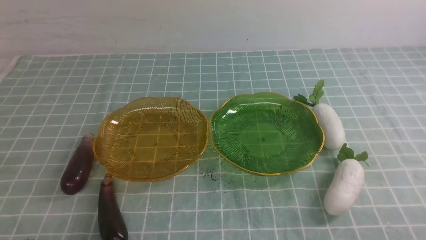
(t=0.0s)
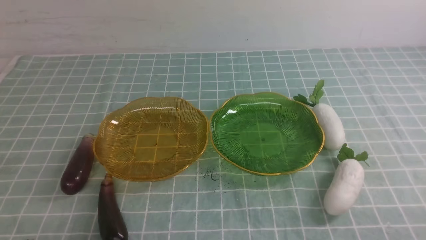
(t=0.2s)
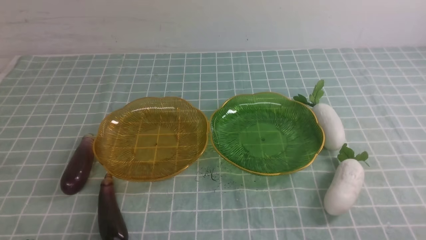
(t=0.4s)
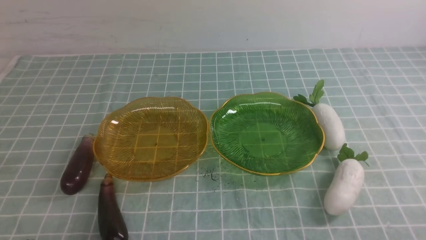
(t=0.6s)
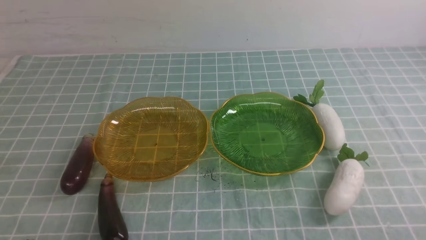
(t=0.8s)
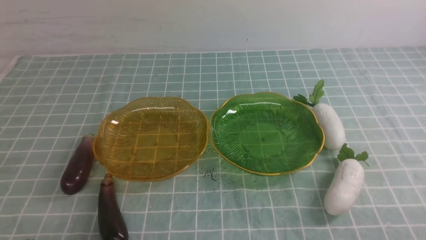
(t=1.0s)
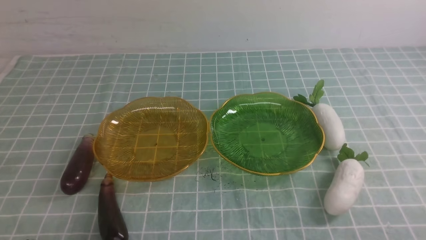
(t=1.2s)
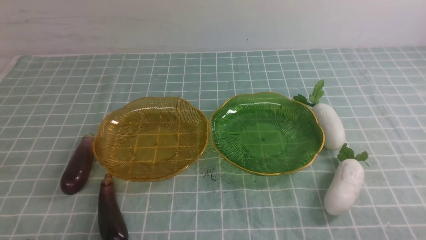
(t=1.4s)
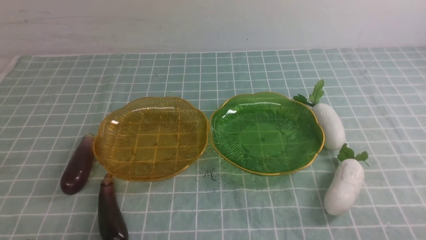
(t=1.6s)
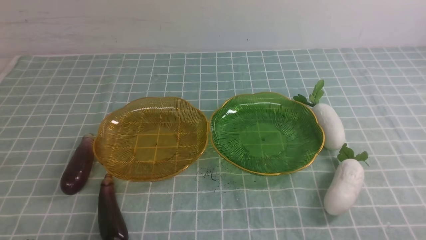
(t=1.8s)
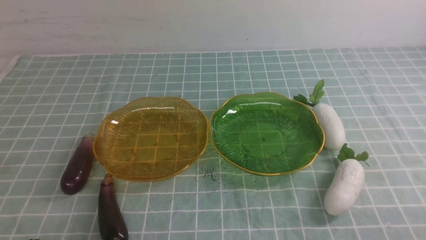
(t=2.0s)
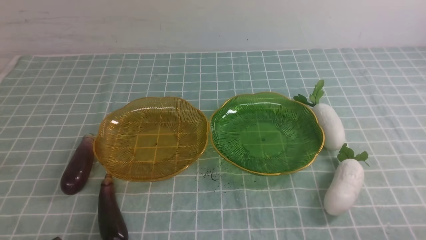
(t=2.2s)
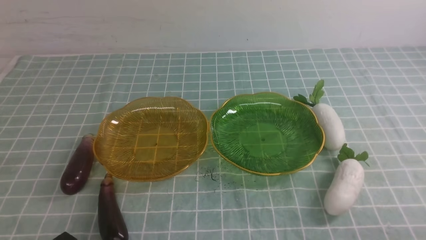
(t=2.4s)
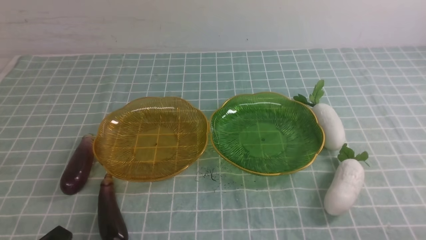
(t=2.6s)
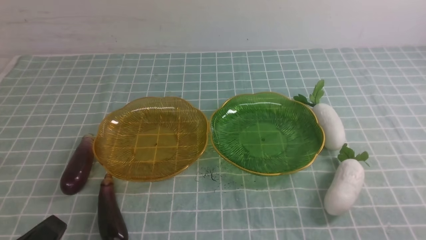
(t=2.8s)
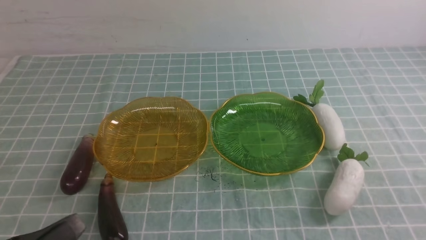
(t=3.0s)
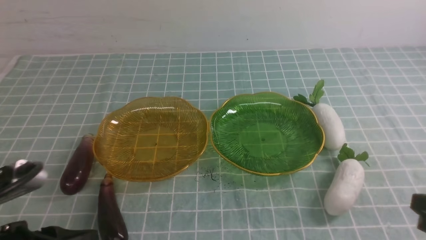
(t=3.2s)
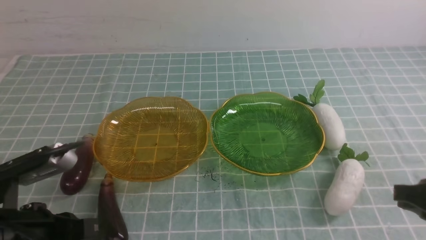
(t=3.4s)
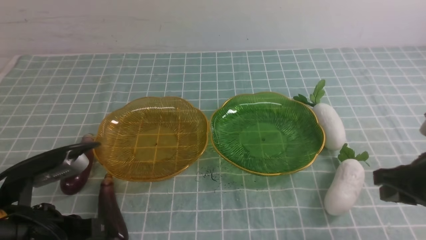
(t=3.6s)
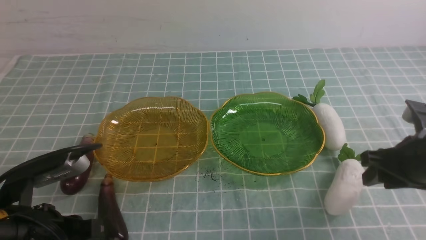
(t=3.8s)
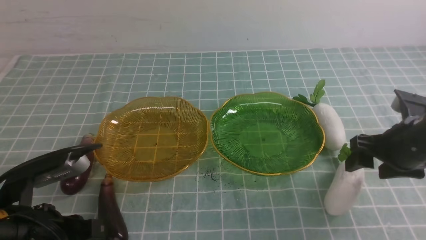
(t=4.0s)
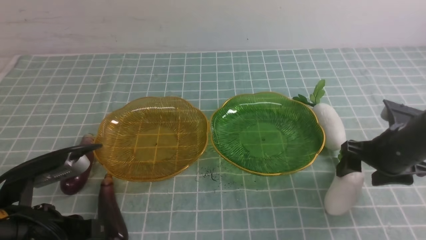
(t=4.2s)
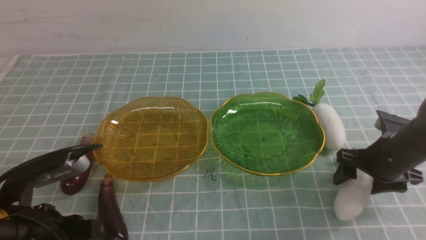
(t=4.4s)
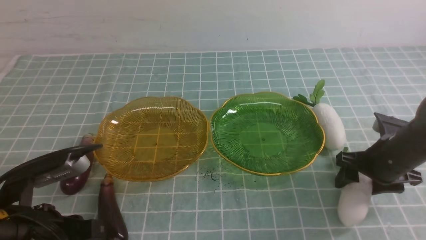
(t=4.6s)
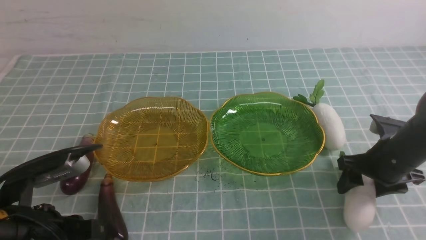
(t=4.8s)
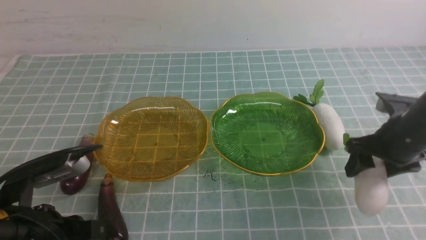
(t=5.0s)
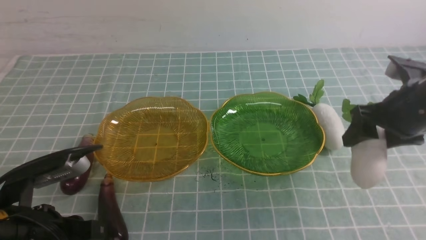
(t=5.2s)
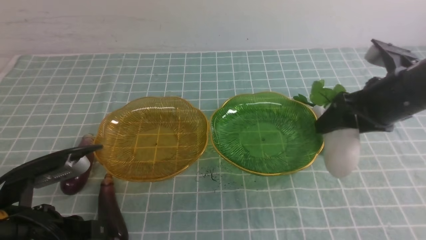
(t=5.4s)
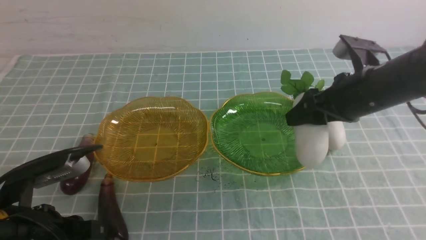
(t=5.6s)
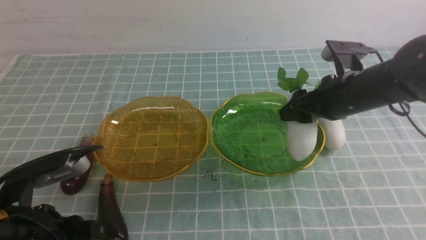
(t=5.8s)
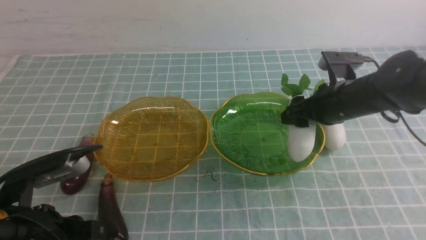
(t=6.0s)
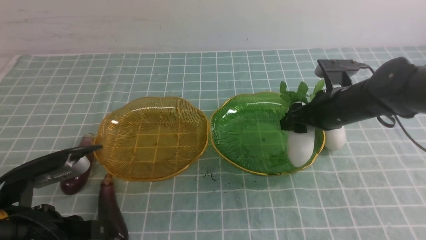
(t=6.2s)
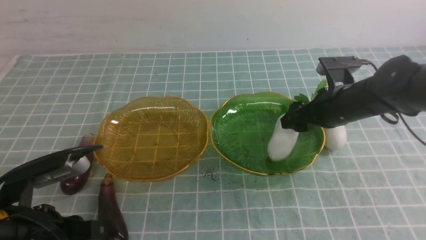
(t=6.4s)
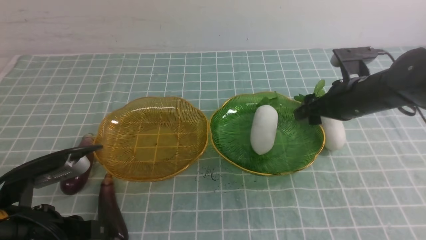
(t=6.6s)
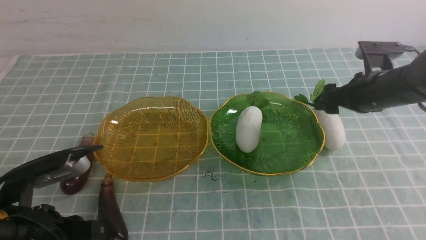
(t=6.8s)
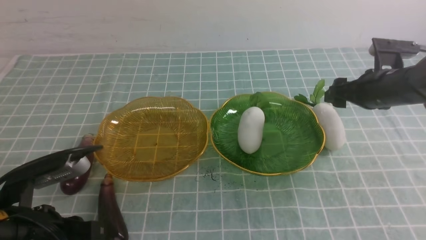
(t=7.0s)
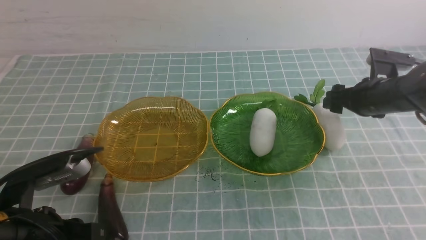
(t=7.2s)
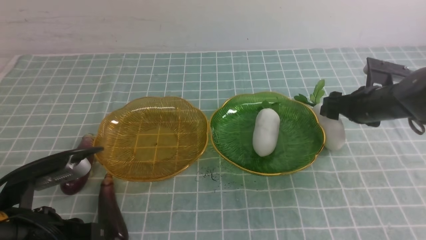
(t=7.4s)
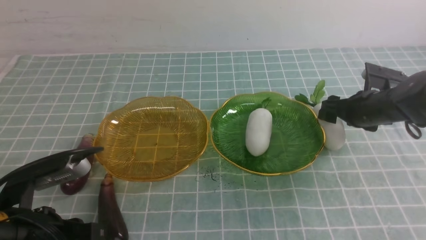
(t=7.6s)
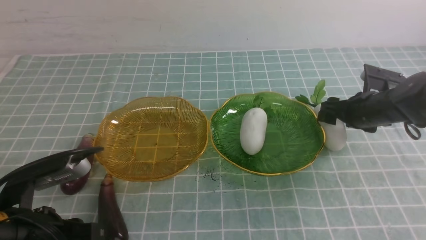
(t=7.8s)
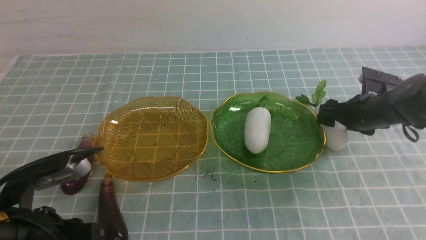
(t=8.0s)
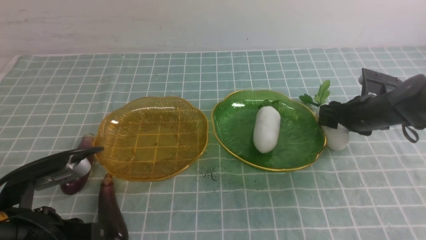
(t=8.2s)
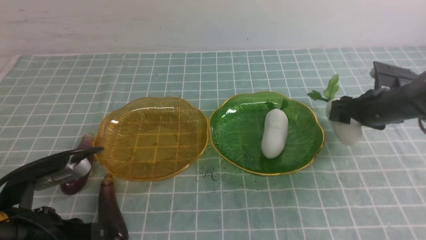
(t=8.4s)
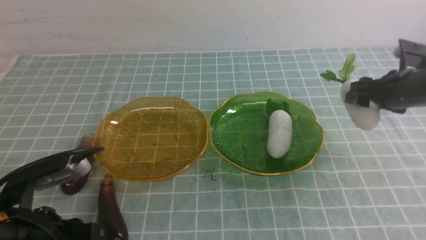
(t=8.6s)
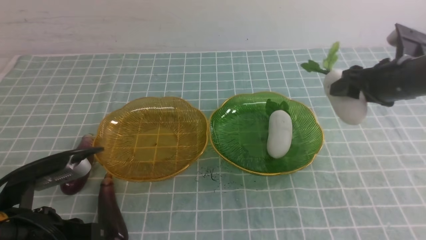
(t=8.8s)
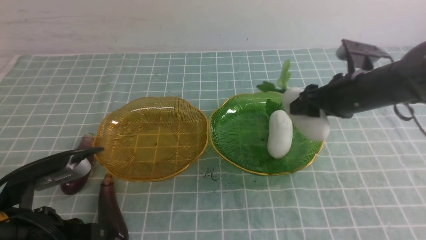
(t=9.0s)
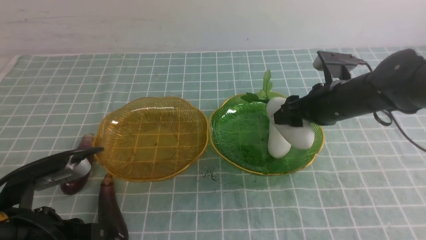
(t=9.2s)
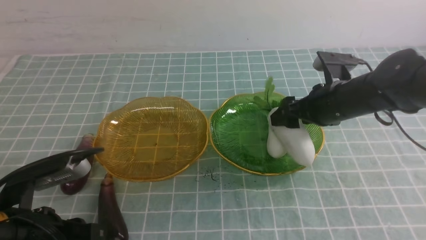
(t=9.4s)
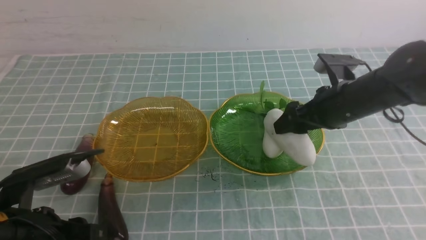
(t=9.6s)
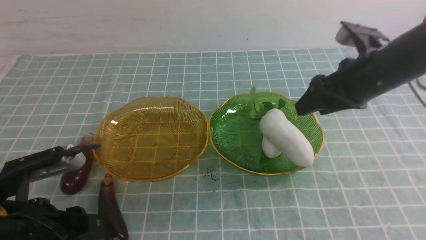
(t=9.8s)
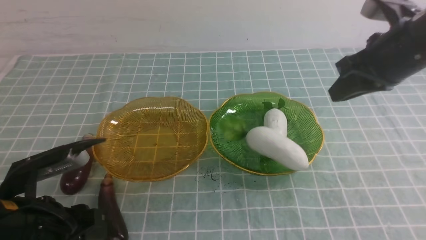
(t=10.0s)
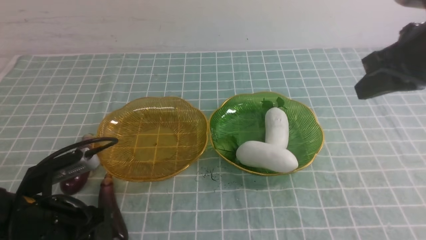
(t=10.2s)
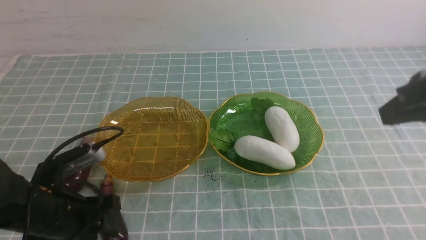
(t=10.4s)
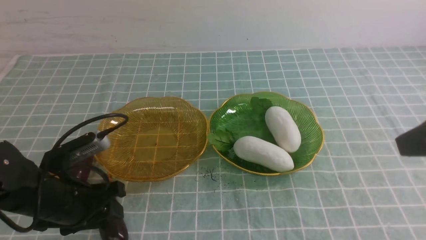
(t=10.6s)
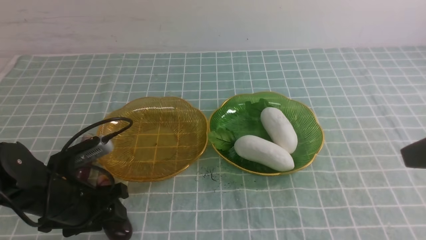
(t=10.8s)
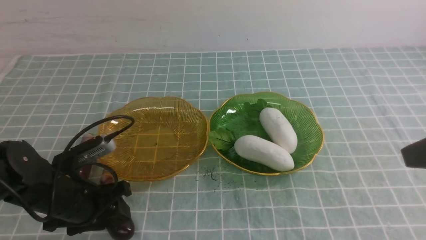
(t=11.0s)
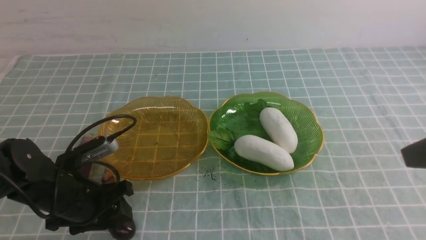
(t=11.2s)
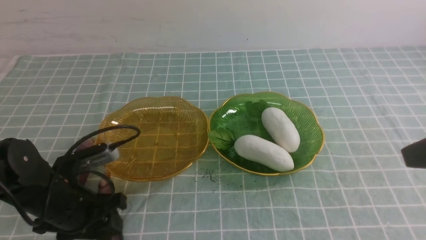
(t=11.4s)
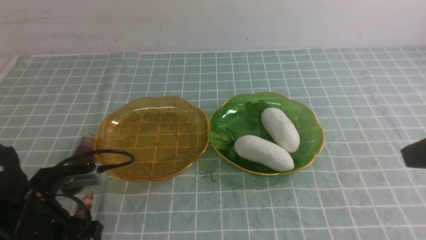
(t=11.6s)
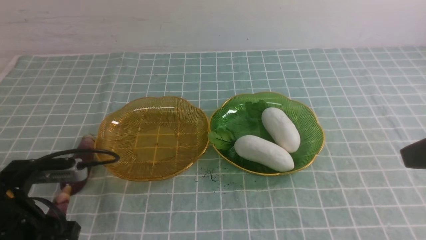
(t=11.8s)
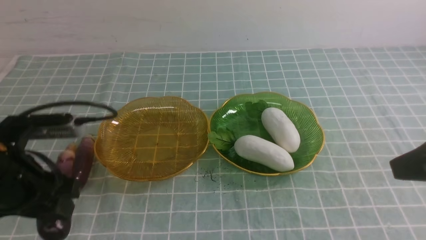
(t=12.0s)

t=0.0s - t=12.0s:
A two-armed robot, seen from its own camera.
Step, t=0.0s - t=6.4s: use the right arm to grab a radish and put it into the right plate.
Step, t=6.6s - t=9.6s: use the right arm to grab a radish and put it into the right plate.
t=0.0s - t=1.6s: Both grippers stay about where they are.
t=1.6s - t=3.0s: The left gripper goes roughly 10 cm upward.
t=3.0s - t=4.4s: The left gripper heads forward, covering some 10 cm, while the right gripper shifts roughly 25 cm forward, and opens its fingers.
t=4.4s - t=6.0s: The right gripper goes roughly 10 cm to the left, forward and upward.
t=6.0s - t=7.6s: The right gripper moves to the right and downward, about 10 cm.
t=7.6s - t=9.0s: The right gripper goes about 10 cm upward and to the left.
t=9.0s - t=10.4s: The left gripper heads forward, covering roughly 5 cm, and opens its fingers; the right gripper travels backward and upward by about 20 cm, and closes.
t=10.4s - t=12.0s: The right gripper moves backward, approximately 5 cm. Meanwhile the left gripper travels upward by about 10 cm.

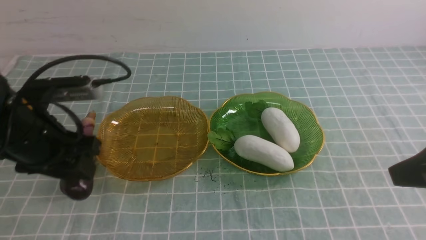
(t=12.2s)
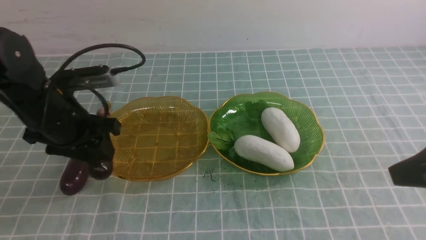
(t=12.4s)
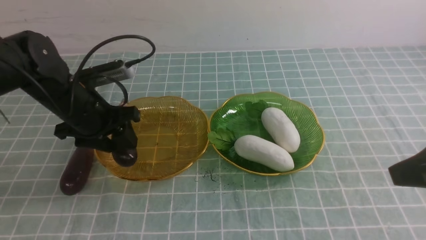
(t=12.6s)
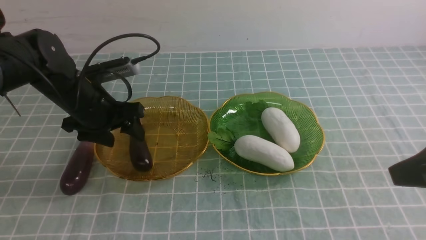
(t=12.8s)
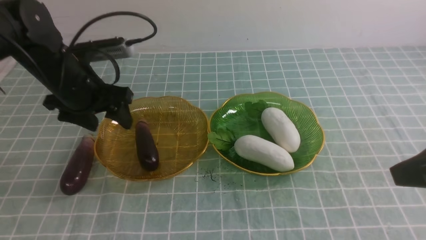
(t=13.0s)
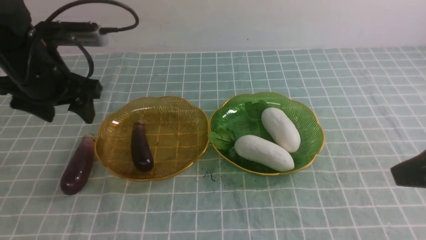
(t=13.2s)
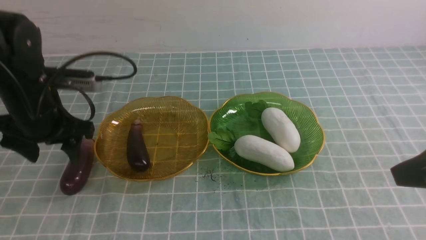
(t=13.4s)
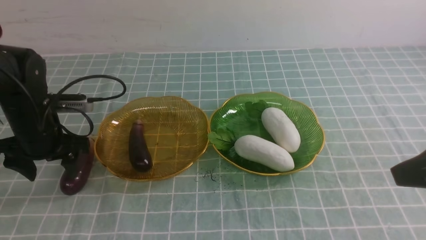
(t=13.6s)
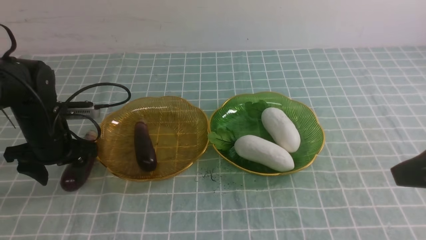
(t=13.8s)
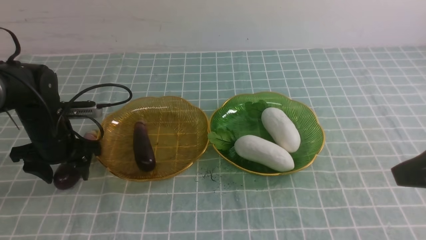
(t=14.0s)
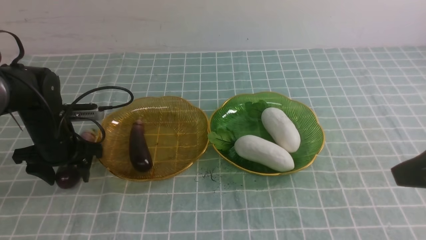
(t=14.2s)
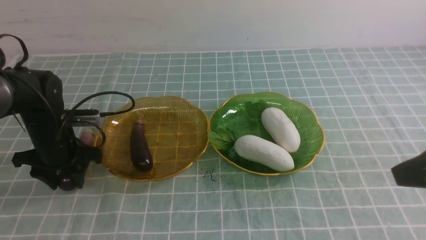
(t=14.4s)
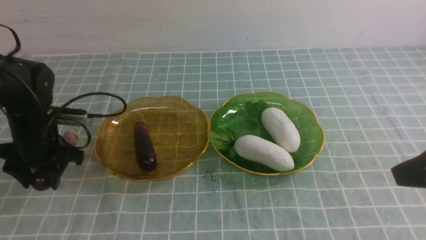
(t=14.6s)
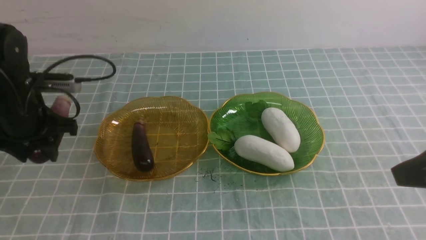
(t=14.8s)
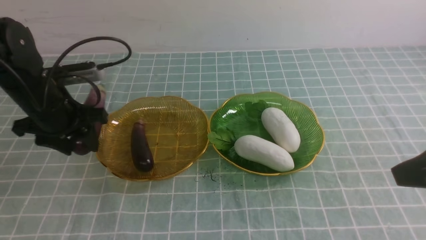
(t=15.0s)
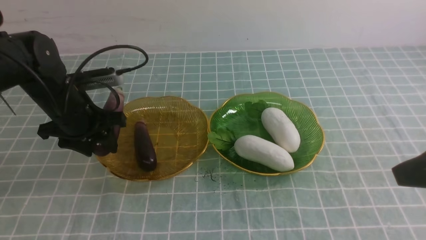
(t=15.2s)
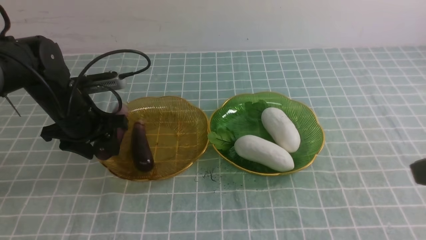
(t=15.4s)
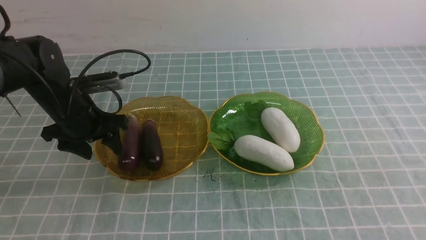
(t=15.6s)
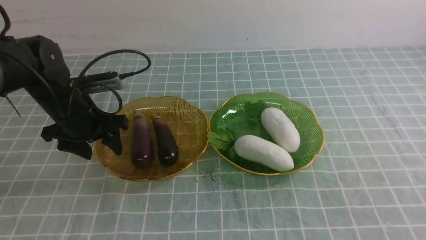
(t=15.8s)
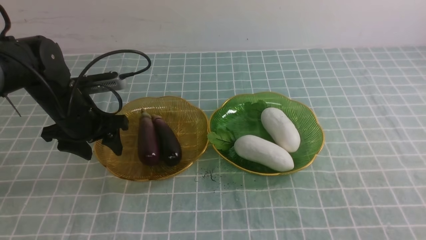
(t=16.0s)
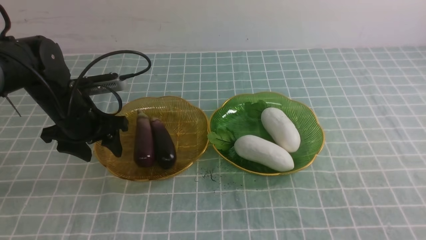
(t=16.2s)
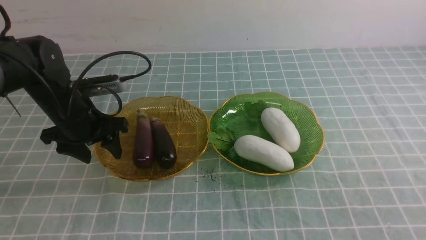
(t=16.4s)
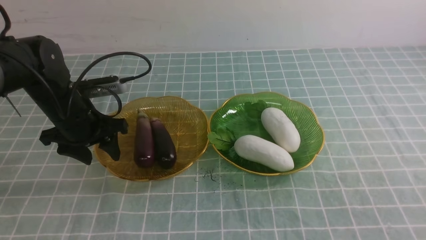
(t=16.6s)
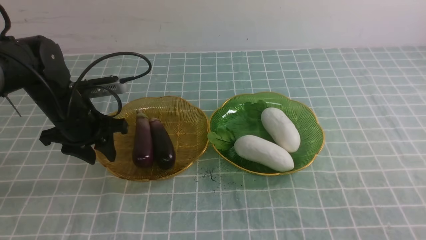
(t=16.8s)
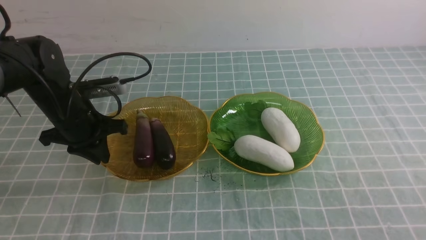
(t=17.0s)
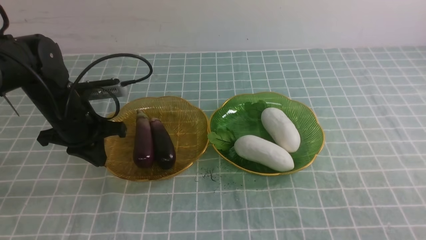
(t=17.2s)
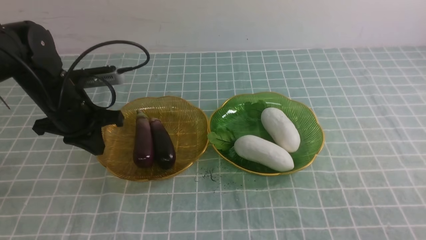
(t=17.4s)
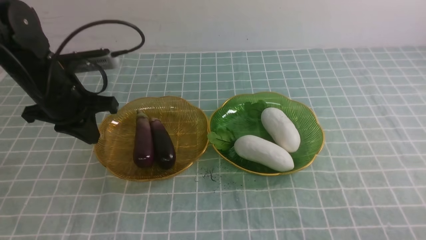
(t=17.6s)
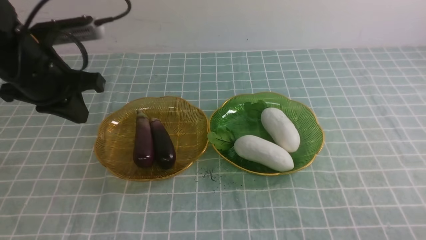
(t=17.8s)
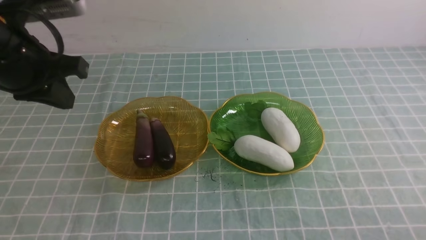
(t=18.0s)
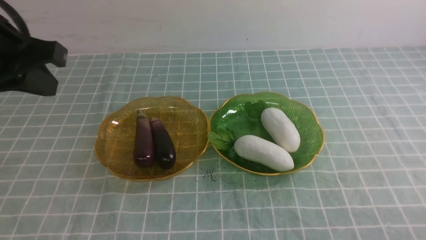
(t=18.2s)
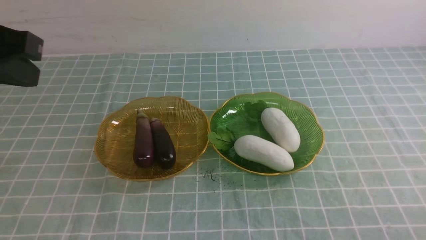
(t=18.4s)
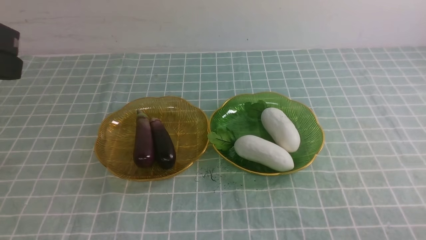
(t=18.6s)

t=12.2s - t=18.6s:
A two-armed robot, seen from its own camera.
Step, t=12.2s - t=15.4s: use the left arm to grab an eggplant and put it into the left plate.
t=12.2s - t=13.8s: The left gripper shifts roughly 10 cm downward and forward.
t=13.8s - t=15.4s: The left gripper shifts by roughly 5 cm.
t=15.4s - t=17.0s: The right gripper goes approximately 15 cm downward and backward. Meanwhile the left gripper closes.
t=17.0s - t=18.6s: The left gripper shifts roughly 30 cm upward and backward.